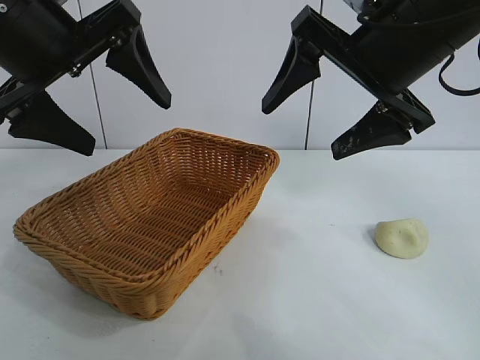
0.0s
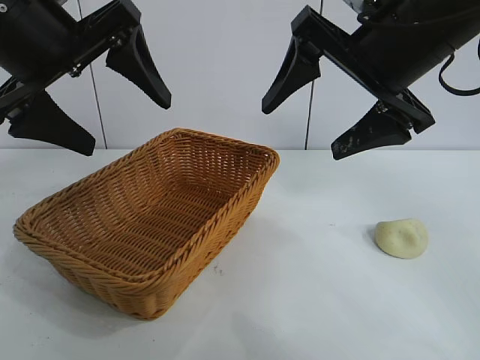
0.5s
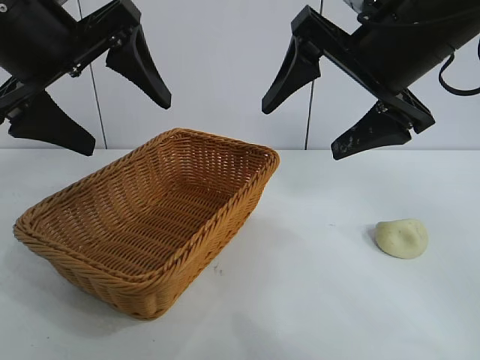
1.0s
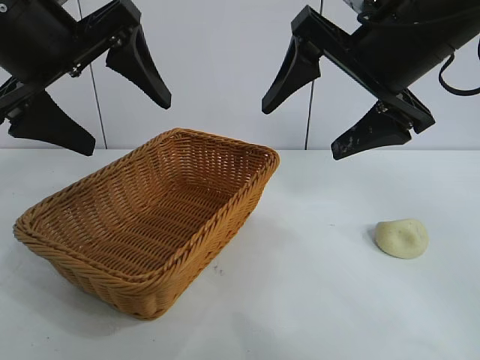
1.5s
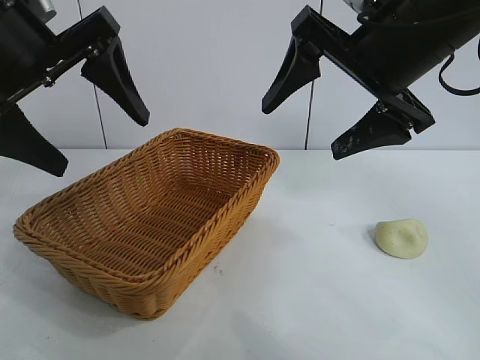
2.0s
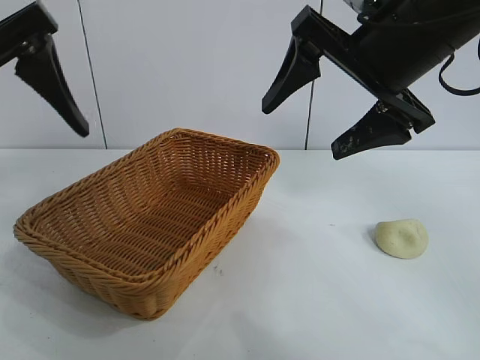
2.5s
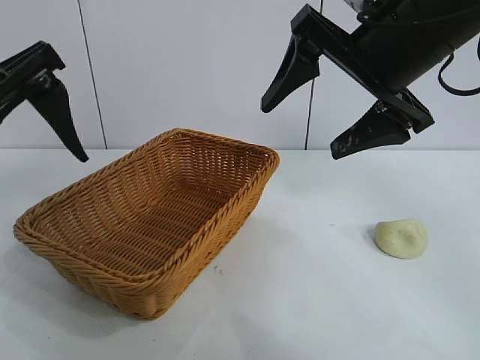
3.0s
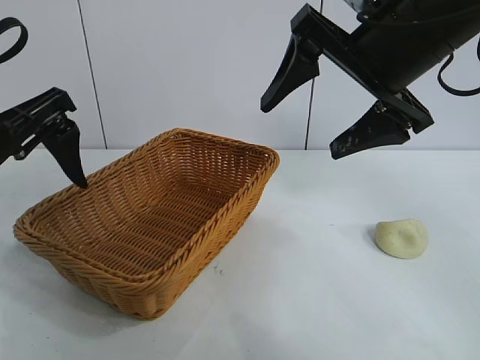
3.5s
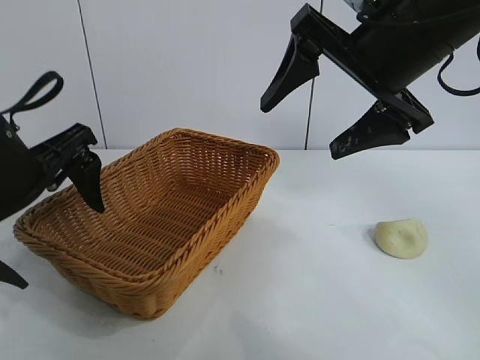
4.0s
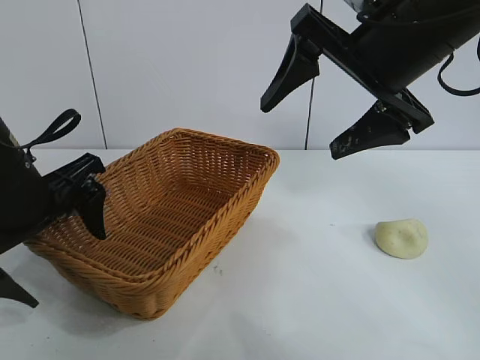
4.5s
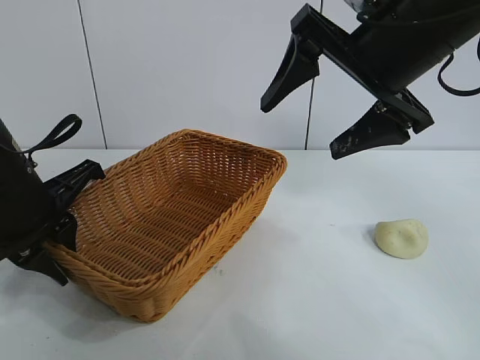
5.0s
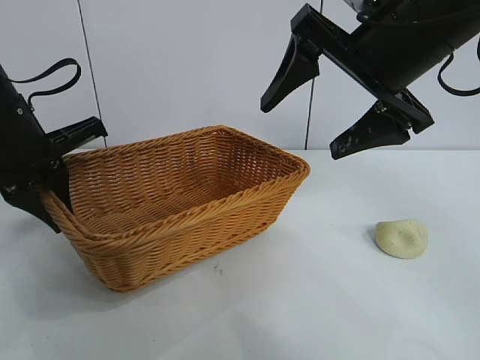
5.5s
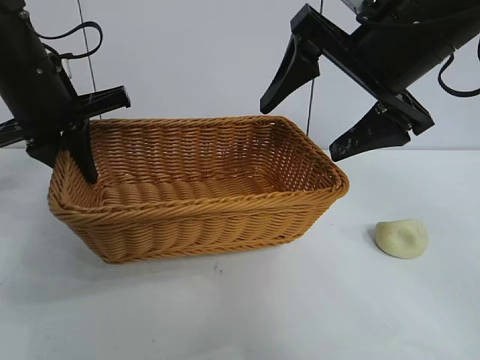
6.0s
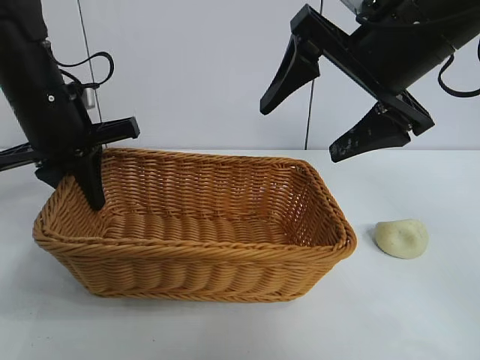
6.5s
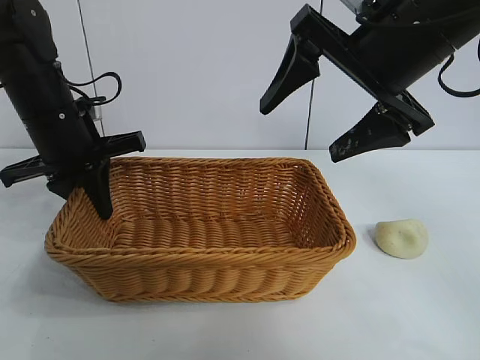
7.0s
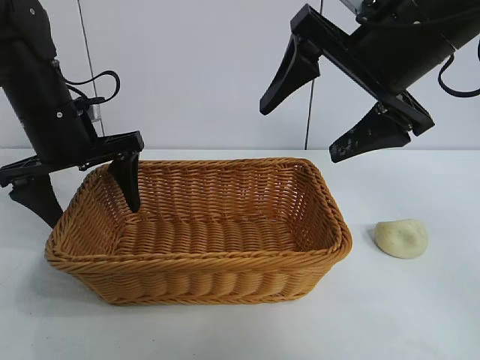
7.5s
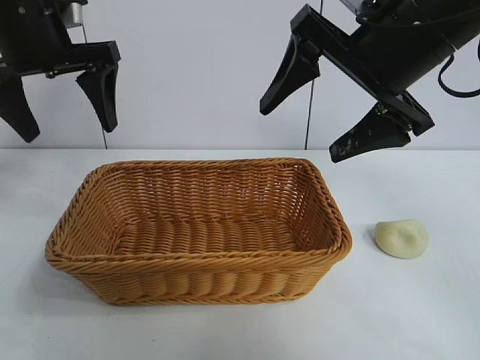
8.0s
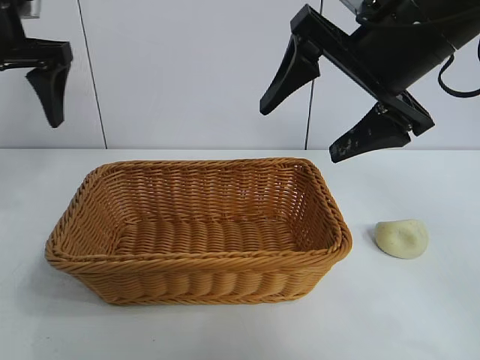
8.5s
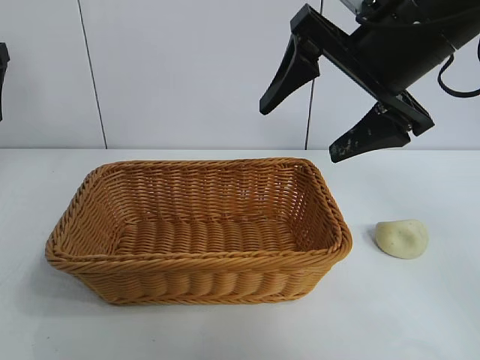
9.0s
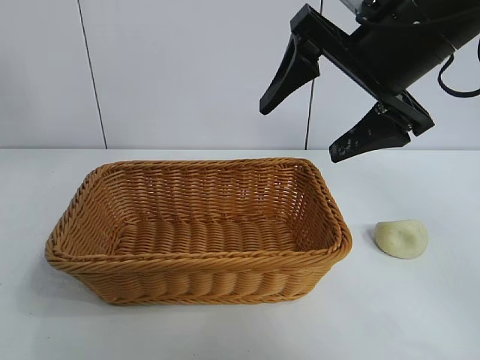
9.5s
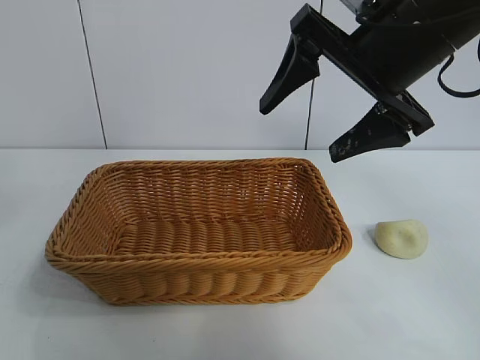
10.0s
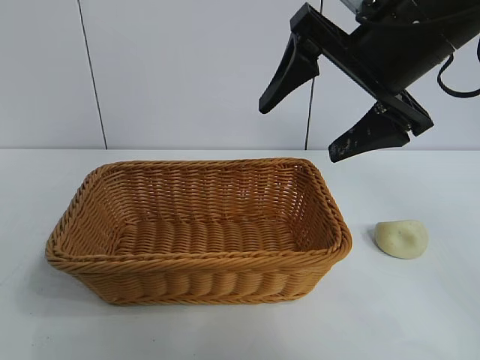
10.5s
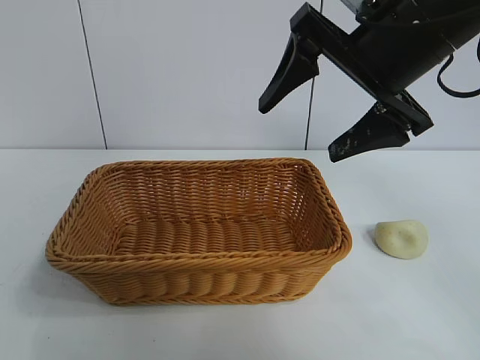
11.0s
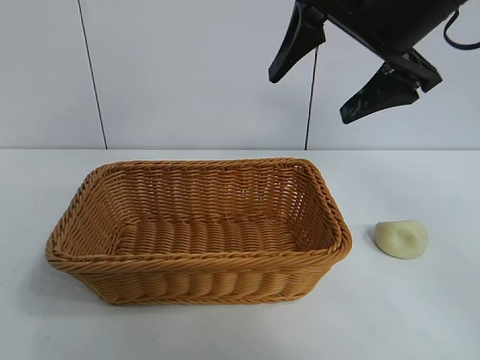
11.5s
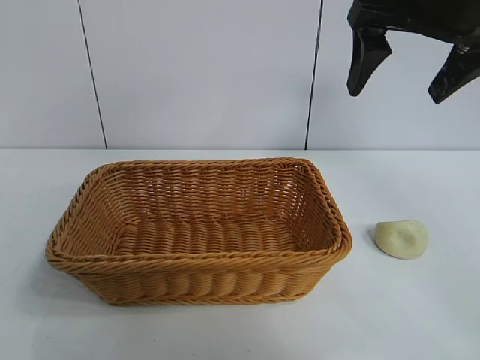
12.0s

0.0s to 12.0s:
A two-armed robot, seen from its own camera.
Task of the whole recording: pick up the egg yolk pastry and put it into the basket.
Step, 2.0s to 4.5s: Grasp the basket with left gripper.
Step, 5.5s to 7.0s: Place the basket in the center of view with left gripper.

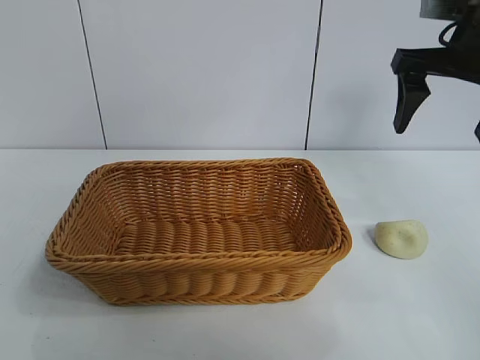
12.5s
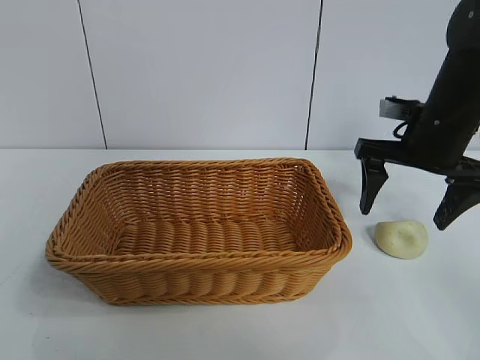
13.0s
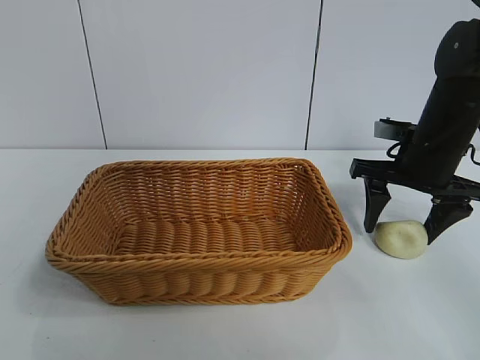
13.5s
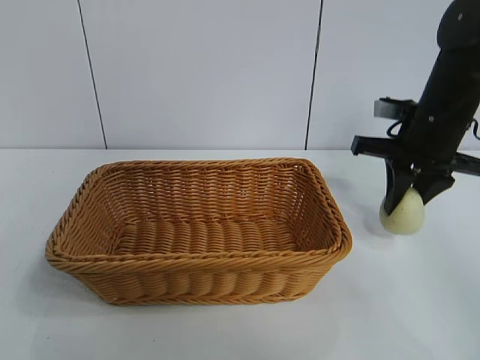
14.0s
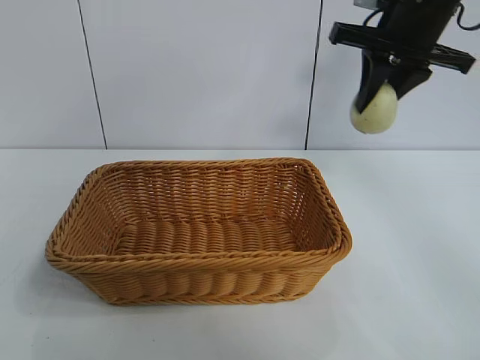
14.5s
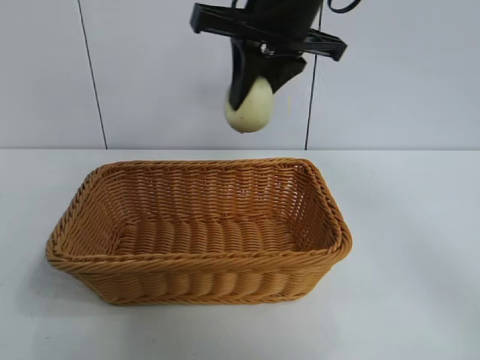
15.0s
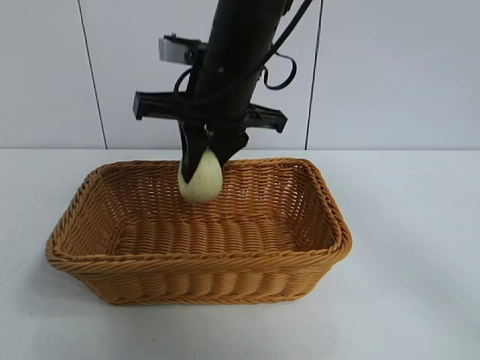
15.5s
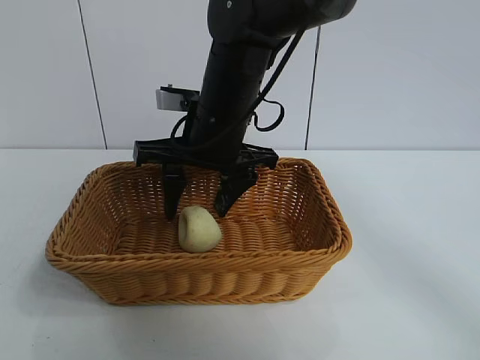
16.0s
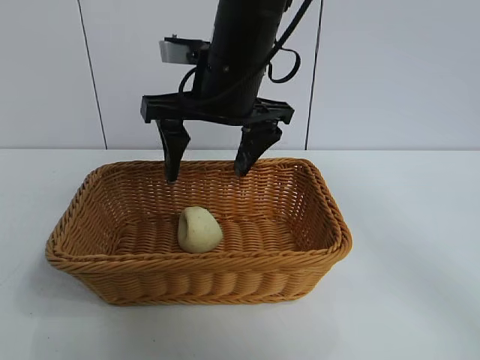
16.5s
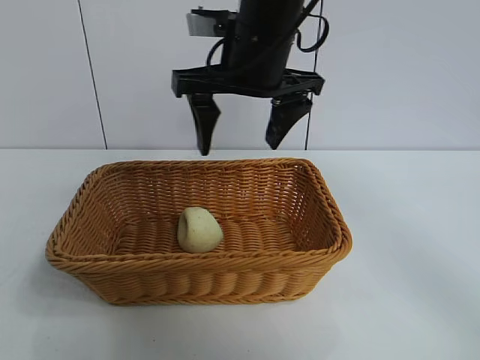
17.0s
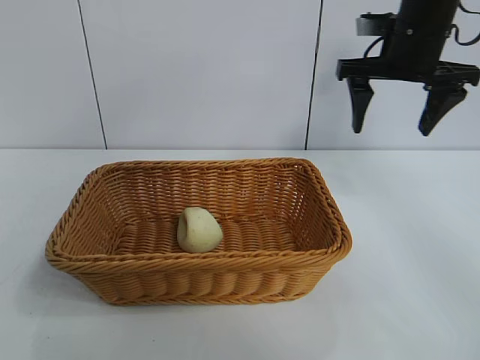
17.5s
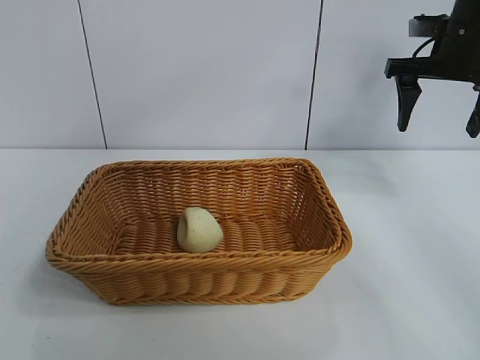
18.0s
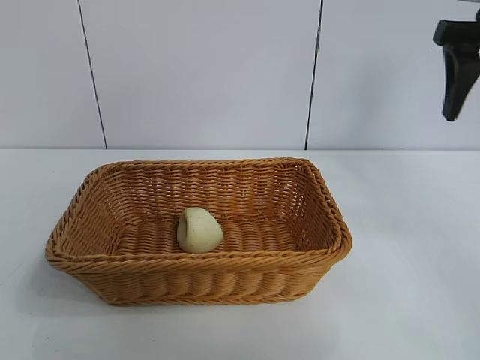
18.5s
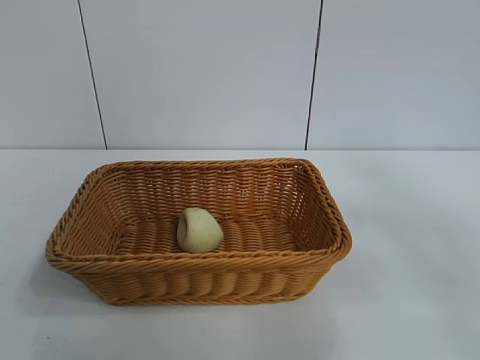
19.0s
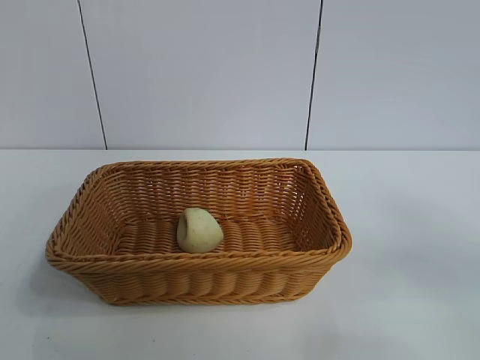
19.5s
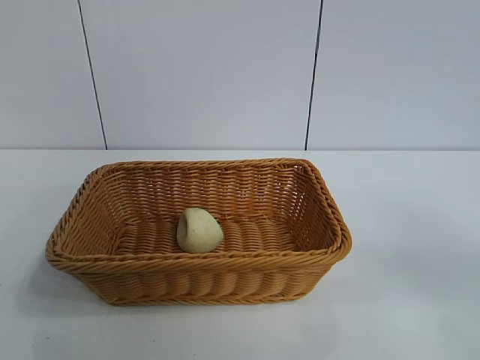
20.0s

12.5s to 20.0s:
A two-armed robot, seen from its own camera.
Task of the whole recording: pick up the egg yolk pastry and put it into the basket.
Step, 14.0s to 16.0s: Place the egg yolk pastry in the basket with right gripper.

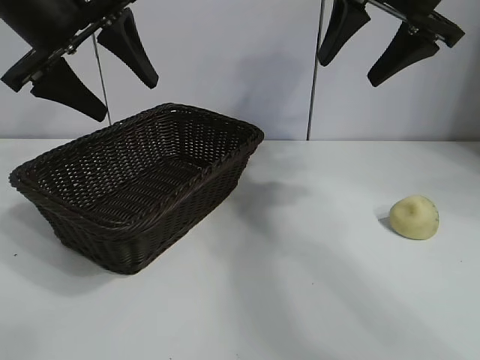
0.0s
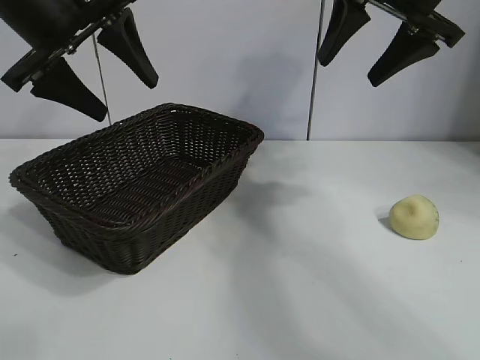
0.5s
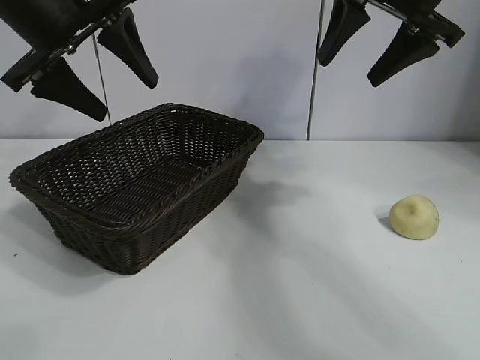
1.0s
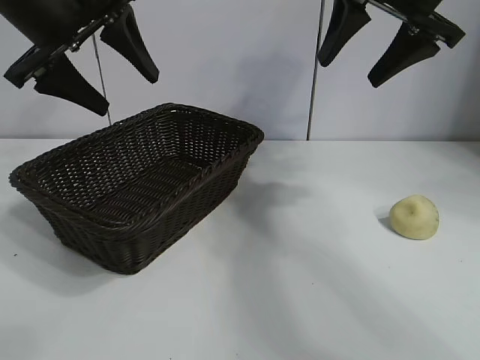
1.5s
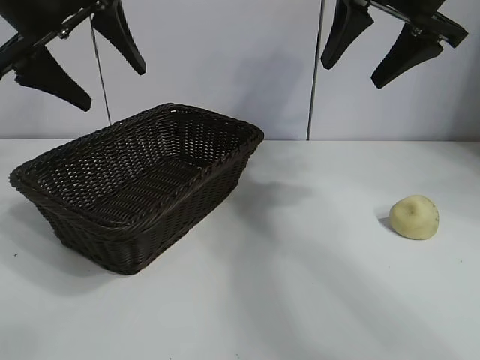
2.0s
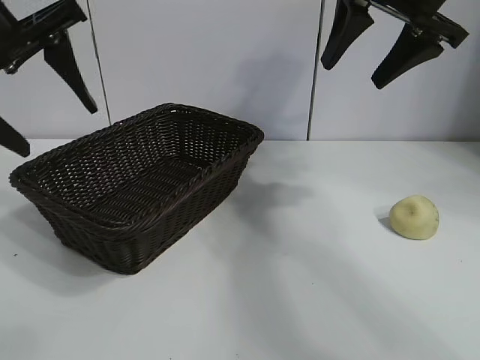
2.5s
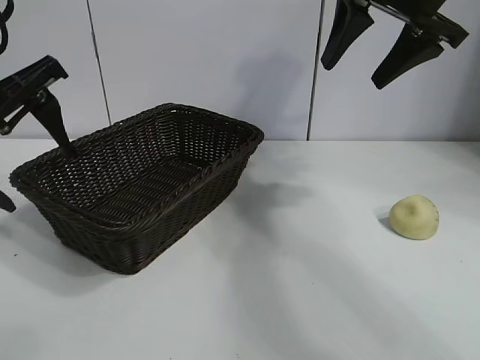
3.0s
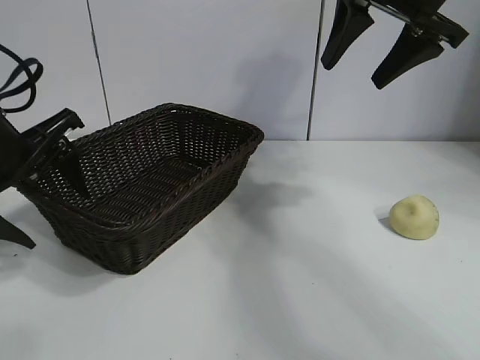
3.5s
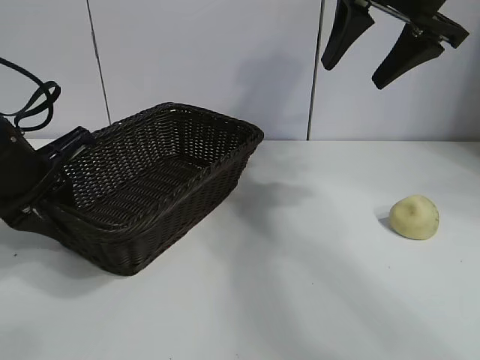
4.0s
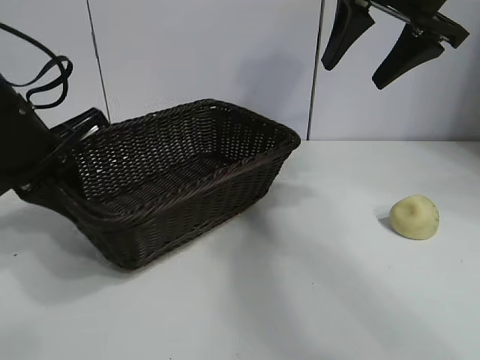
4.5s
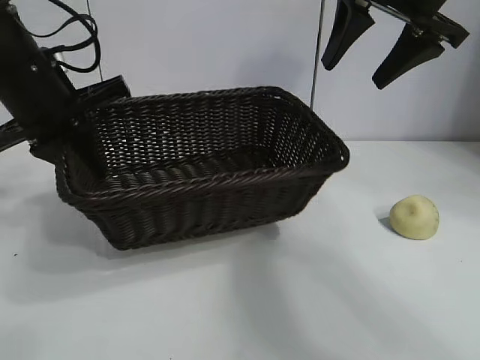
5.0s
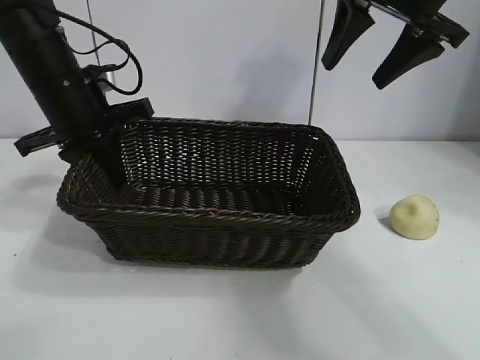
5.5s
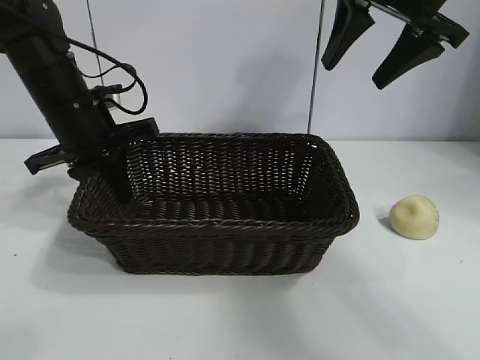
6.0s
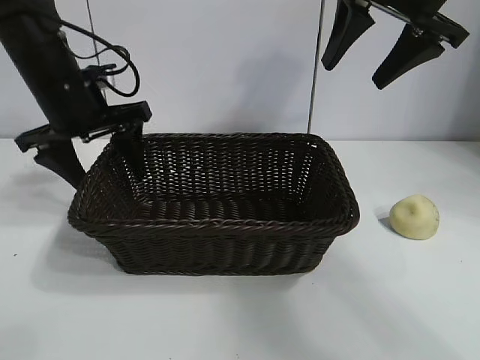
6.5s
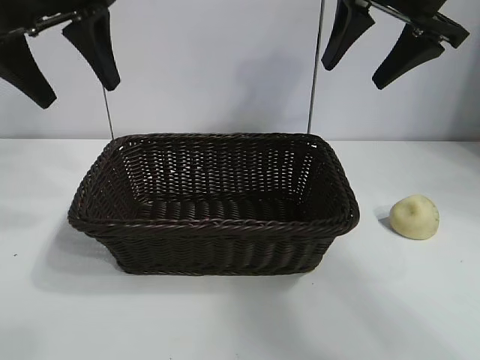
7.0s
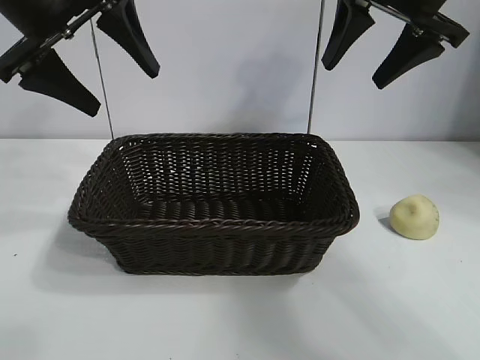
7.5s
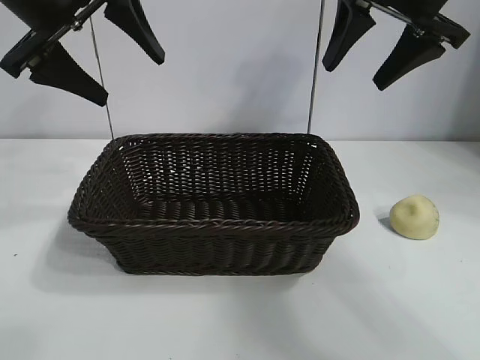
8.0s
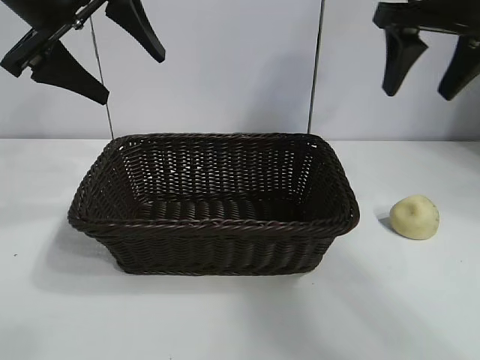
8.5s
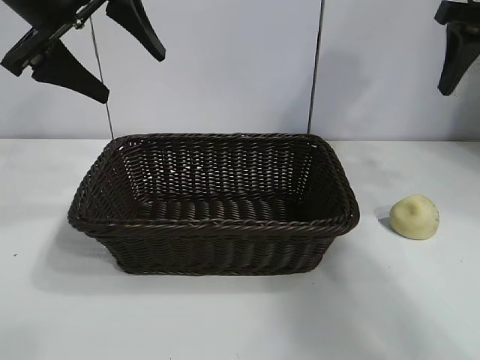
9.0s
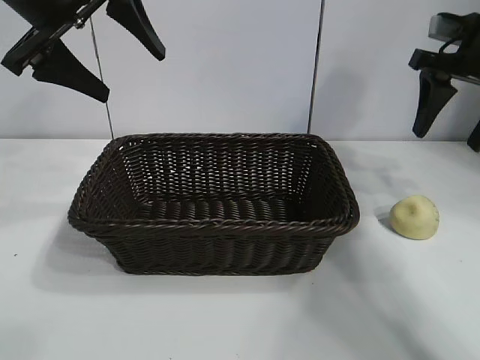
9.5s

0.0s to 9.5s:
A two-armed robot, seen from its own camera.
Task of the whole recording: pick up the egg yolk pastry and put it into the basket.
Step, 1.5s to 4.0s: Grasp the basket with left gripper.
Step, 4.5s to 6.5s: Place the basket in the center of view with left gripper.
